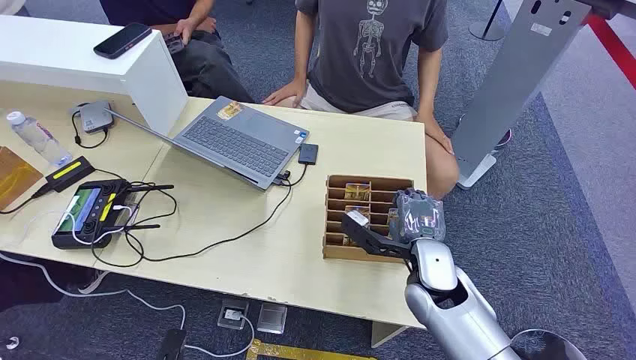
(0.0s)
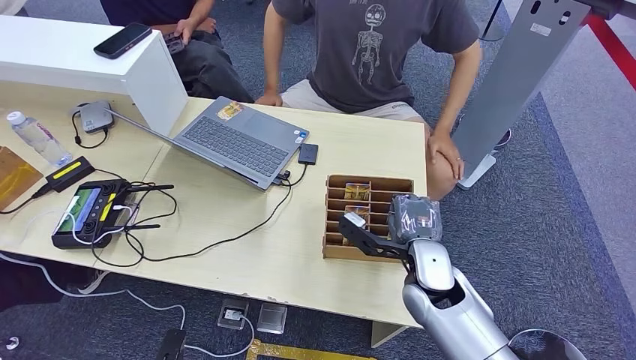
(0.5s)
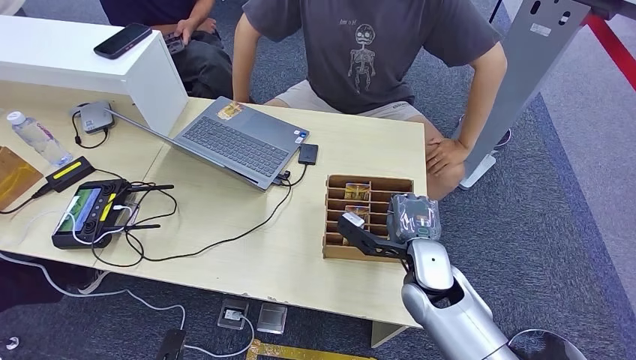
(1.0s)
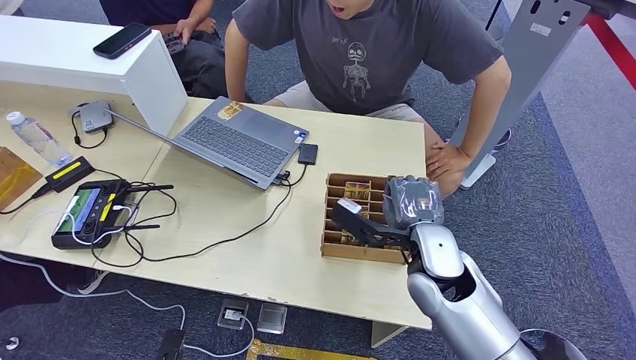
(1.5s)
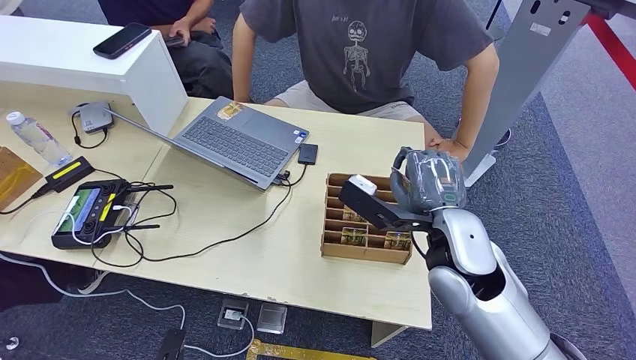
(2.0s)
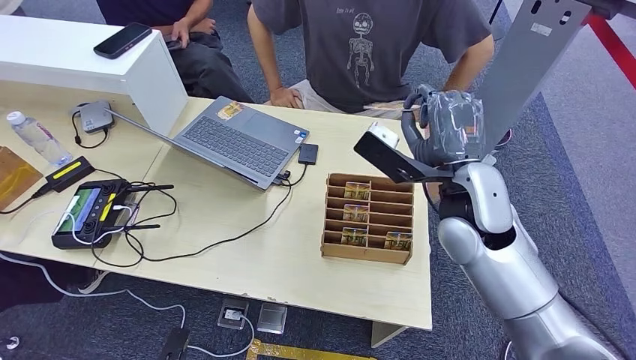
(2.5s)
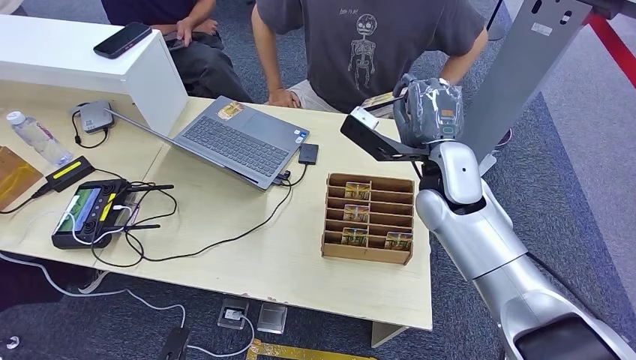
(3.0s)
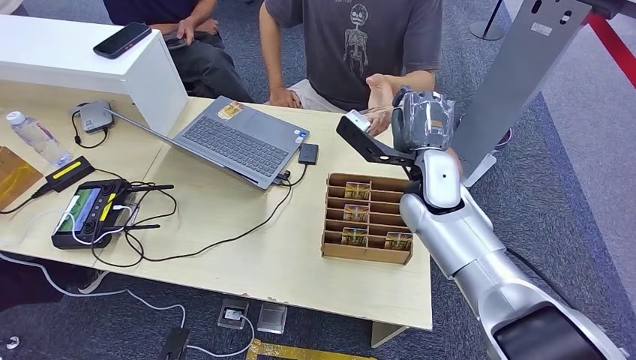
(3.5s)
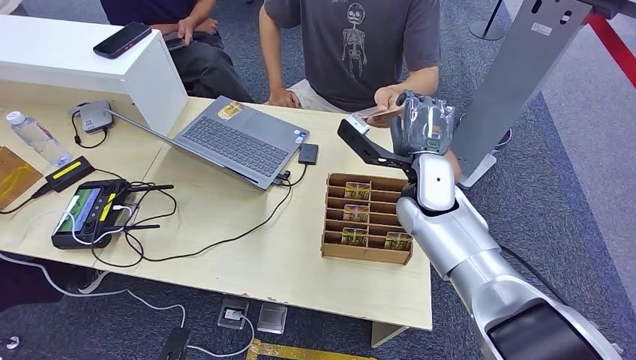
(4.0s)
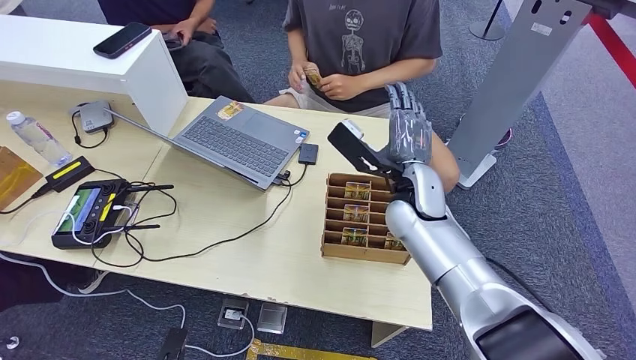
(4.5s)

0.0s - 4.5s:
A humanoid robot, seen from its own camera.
Step, 0.0s - 1.5s: Pick up the key card from the card box.
Step, 2.5s - 4.5s: Hand the key card to the target.
2.0s - 4.5s: The right hand is displaced forward by approximately 10 cm.
